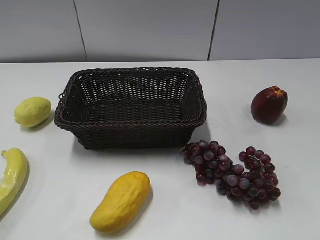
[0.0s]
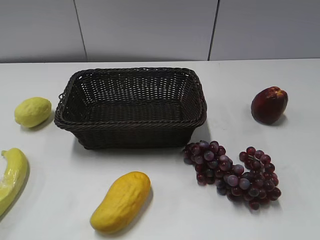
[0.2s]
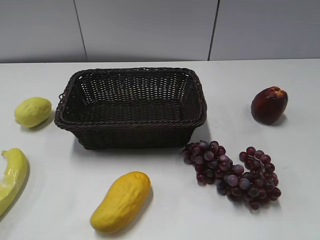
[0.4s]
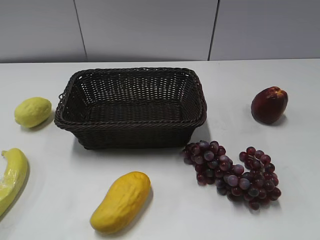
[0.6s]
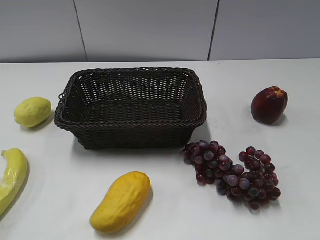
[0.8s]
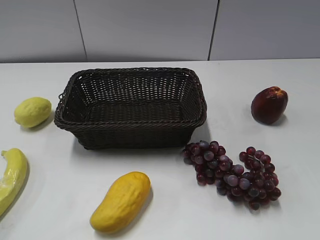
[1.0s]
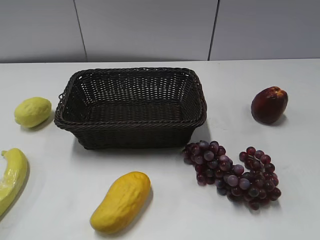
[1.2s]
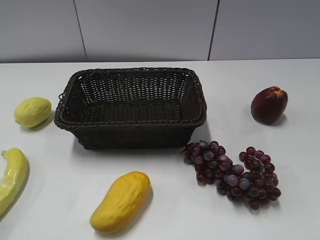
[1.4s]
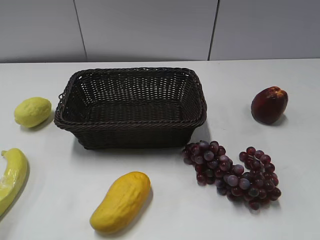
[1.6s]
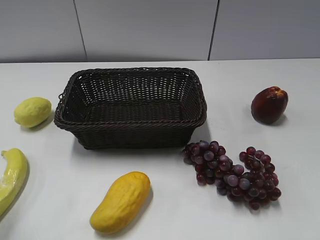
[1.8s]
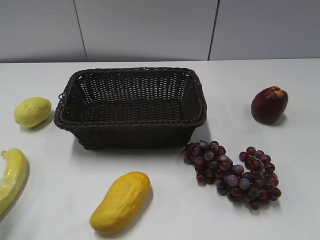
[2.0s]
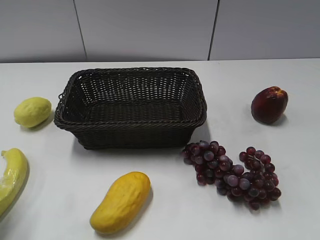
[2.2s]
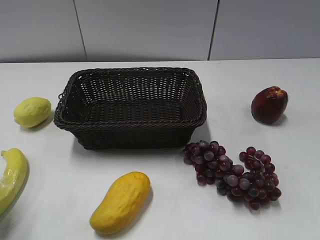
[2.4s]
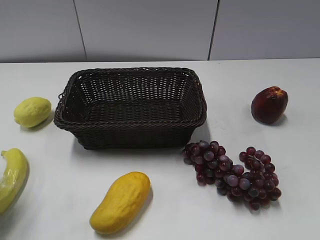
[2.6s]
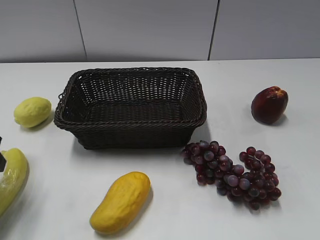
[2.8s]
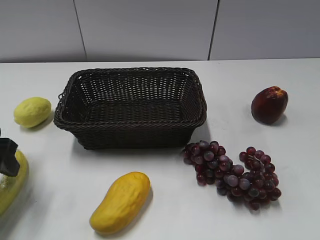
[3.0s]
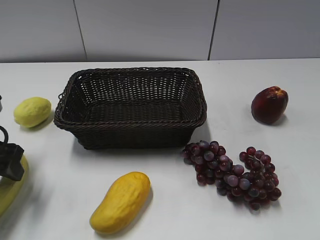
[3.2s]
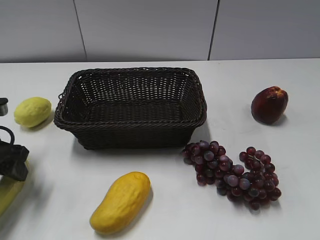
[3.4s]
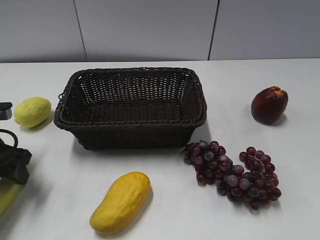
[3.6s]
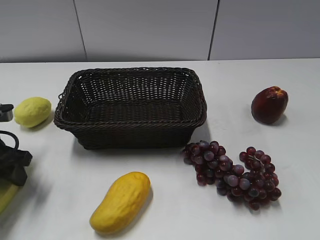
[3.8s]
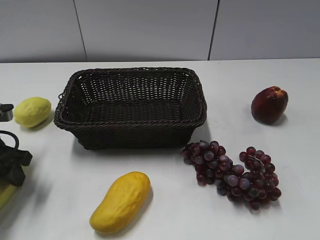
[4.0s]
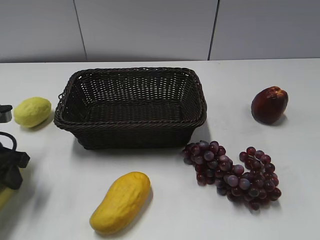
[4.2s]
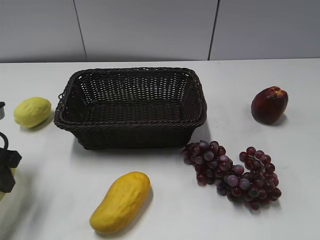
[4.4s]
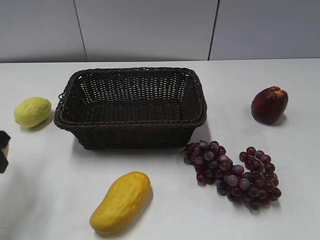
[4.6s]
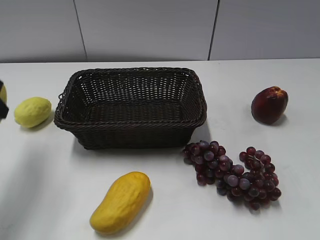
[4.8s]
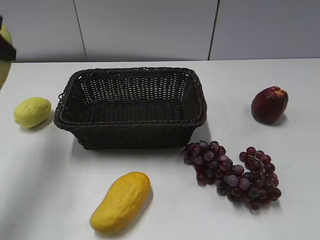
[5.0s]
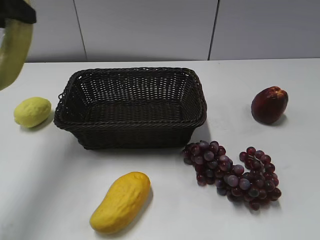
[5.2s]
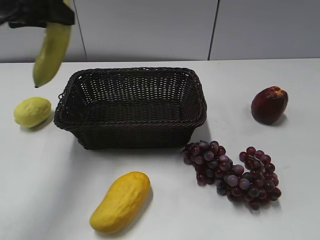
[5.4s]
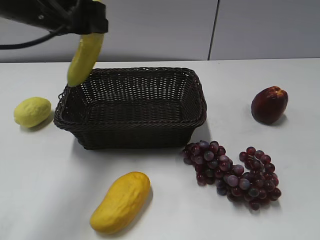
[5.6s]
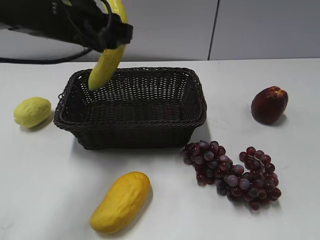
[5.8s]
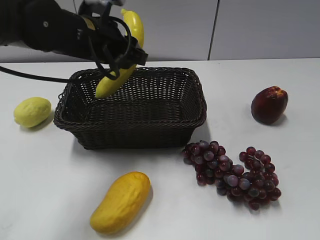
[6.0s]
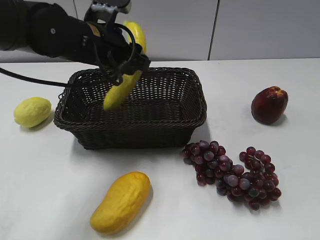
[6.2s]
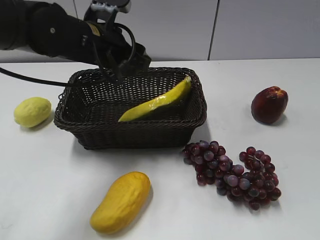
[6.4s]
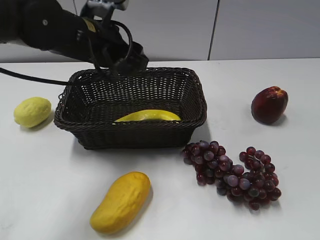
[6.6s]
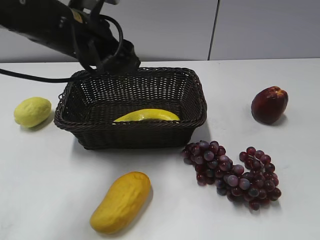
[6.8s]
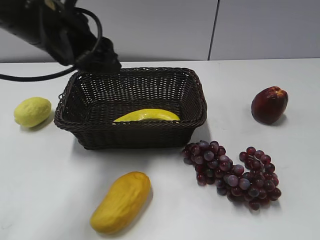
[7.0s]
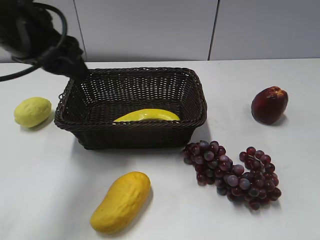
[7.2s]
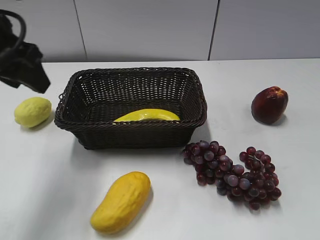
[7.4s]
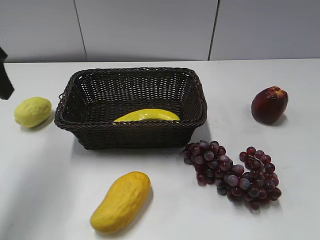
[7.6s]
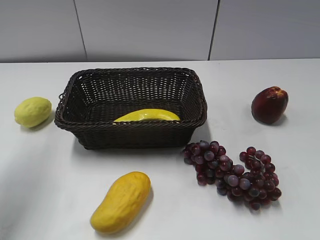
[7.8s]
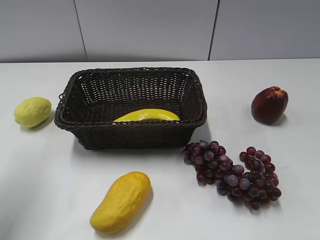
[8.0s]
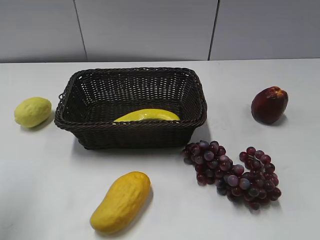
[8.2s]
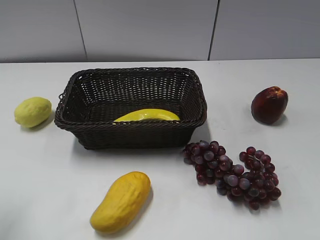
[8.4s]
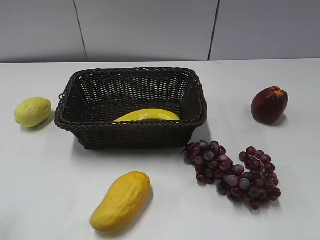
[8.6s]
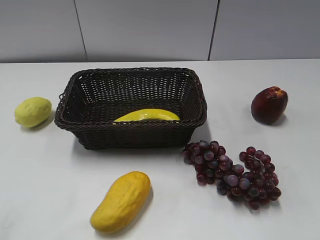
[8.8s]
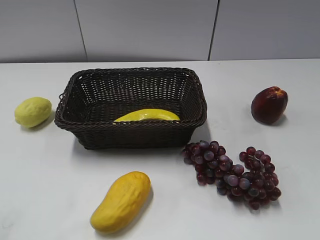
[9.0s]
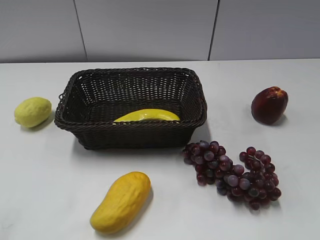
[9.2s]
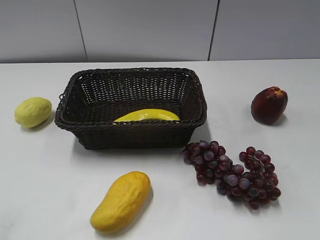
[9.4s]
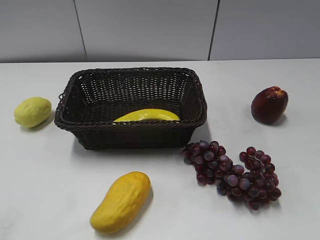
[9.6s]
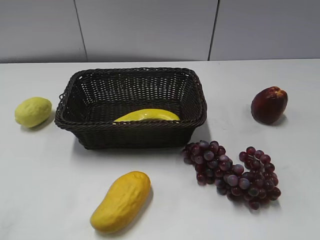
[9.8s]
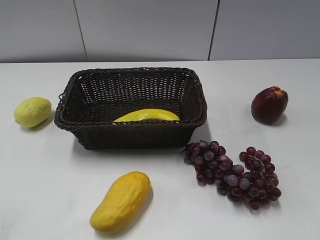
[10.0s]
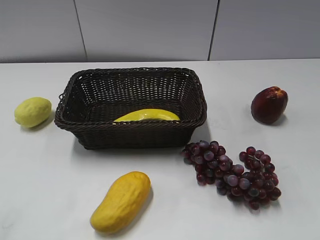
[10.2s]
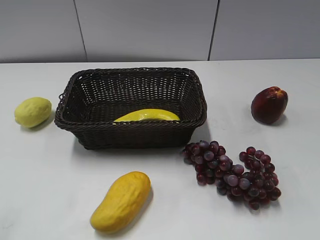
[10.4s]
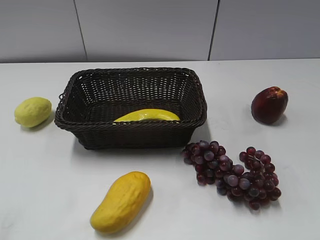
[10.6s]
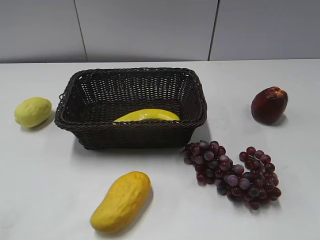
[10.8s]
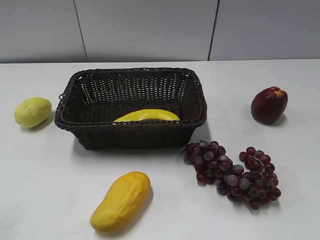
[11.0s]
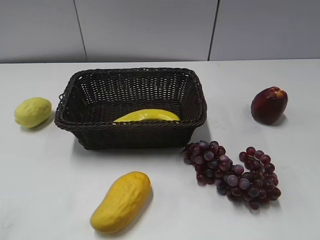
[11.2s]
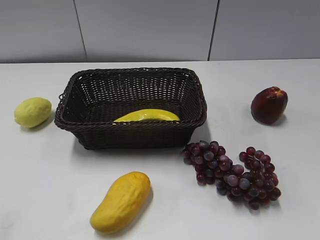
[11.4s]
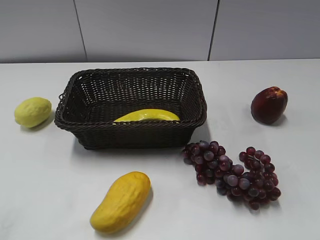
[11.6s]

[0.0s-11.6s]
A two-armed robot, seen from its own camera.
Step, 2.8s to 3.8s: Grasp the banana with left gripper.
Step, 4.0s to 6.4s: Place the banana in the basket with left gripper.
1.4s to 2.8s: The left gripper shifts some 20 cm forward and downward.
2.8s to 4.4s: The left gripper closes its fingers.
4.4s to 5.8s: The left gripper heads to the right, forward and upward, covering approximately 20 cm.
5.8s to 7.2s: The left gripper moves to the left, backward and upward, some 10 cm, and opens up.
7.2s to 8.8s: The left gripper heads backward and to the left, covering about 25 cm.

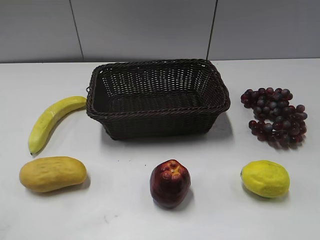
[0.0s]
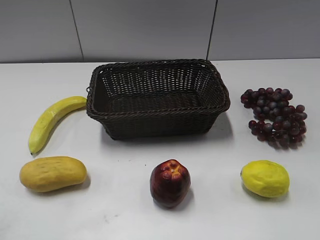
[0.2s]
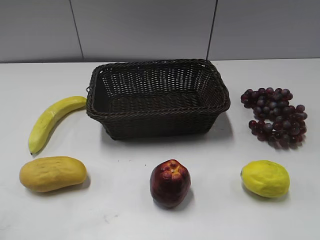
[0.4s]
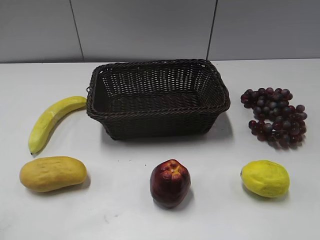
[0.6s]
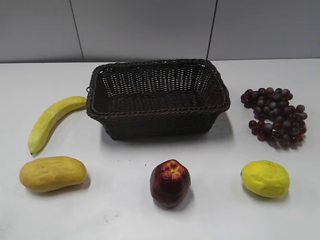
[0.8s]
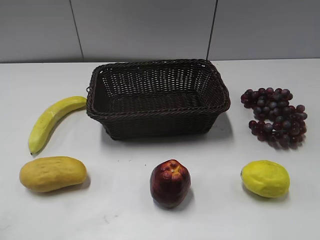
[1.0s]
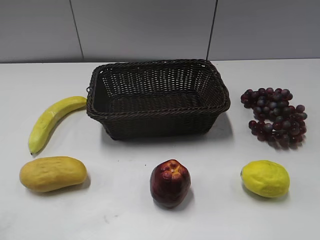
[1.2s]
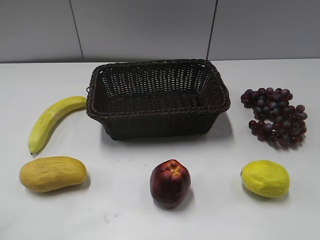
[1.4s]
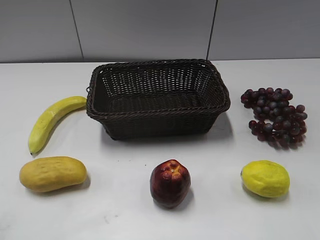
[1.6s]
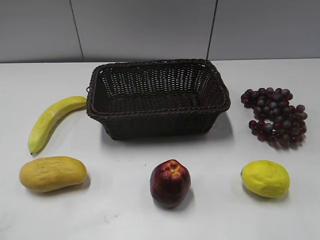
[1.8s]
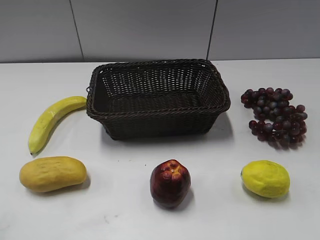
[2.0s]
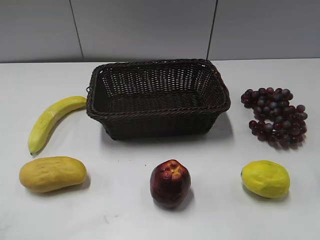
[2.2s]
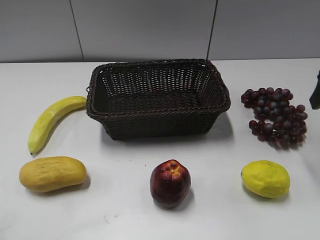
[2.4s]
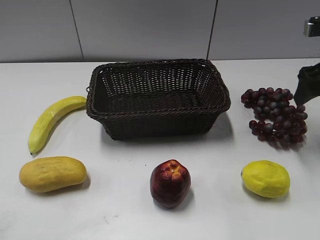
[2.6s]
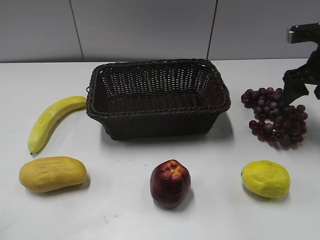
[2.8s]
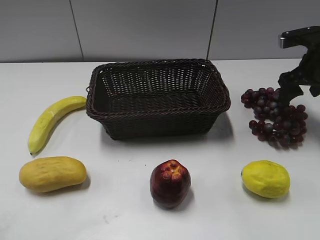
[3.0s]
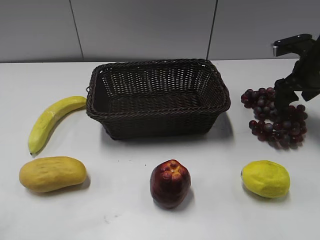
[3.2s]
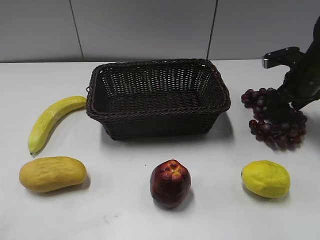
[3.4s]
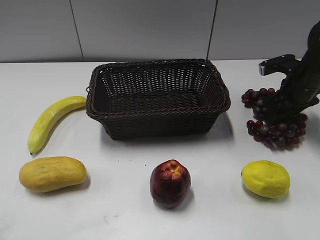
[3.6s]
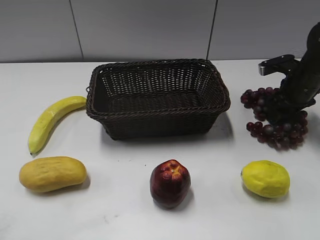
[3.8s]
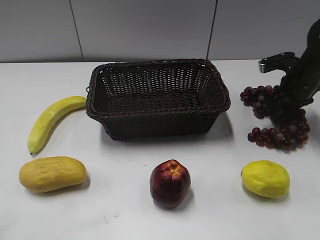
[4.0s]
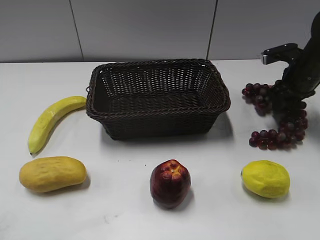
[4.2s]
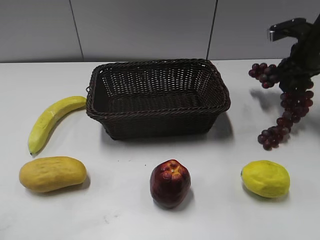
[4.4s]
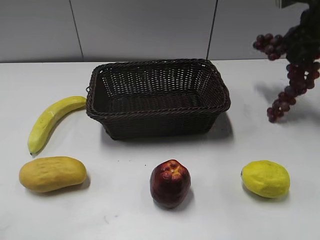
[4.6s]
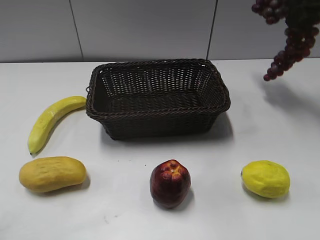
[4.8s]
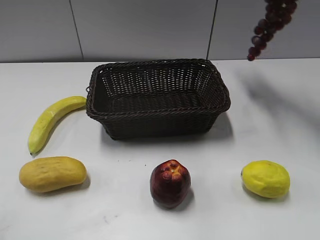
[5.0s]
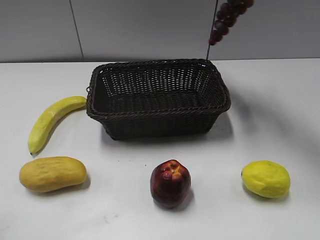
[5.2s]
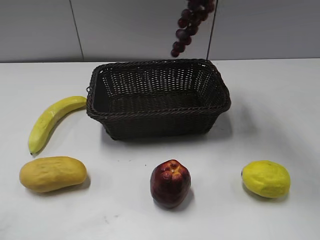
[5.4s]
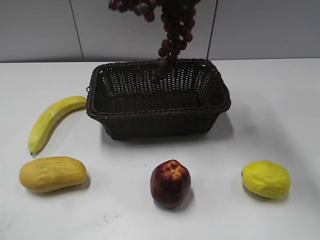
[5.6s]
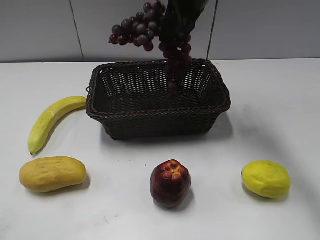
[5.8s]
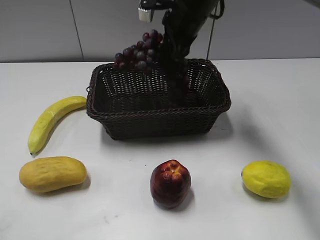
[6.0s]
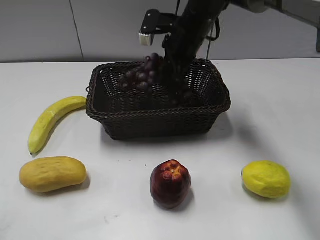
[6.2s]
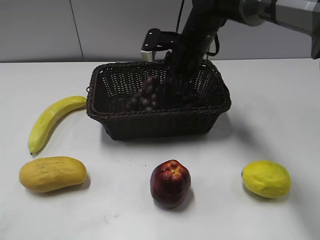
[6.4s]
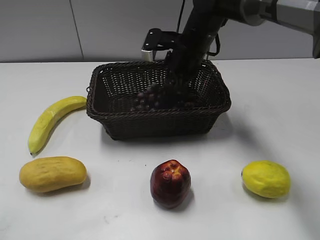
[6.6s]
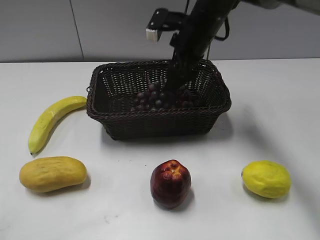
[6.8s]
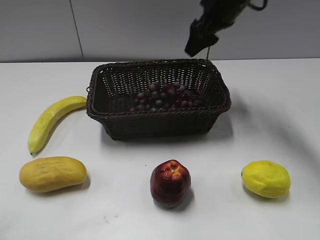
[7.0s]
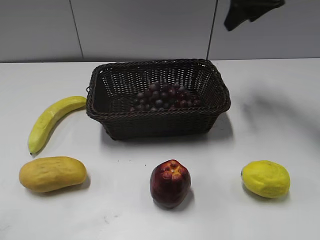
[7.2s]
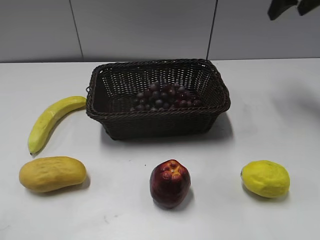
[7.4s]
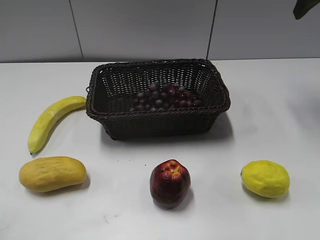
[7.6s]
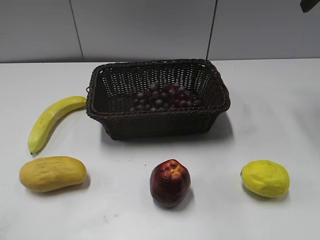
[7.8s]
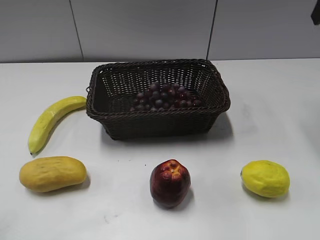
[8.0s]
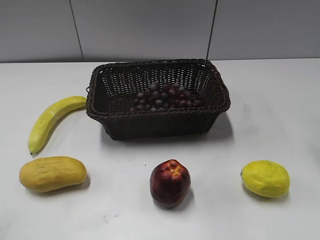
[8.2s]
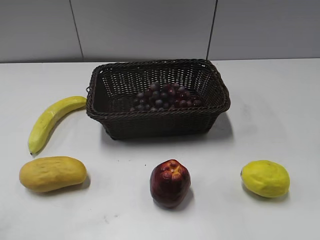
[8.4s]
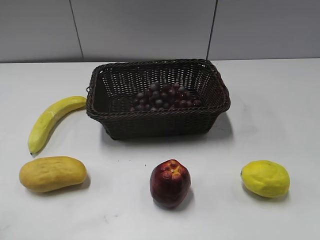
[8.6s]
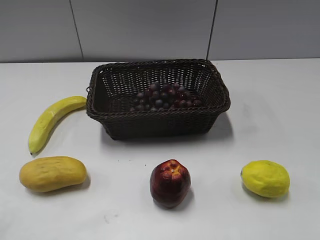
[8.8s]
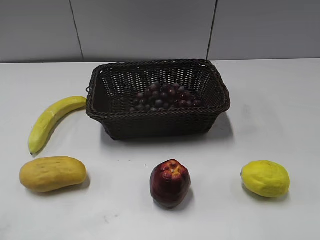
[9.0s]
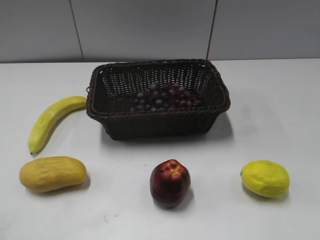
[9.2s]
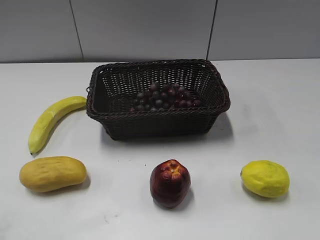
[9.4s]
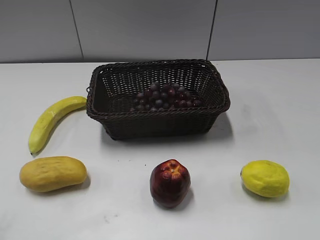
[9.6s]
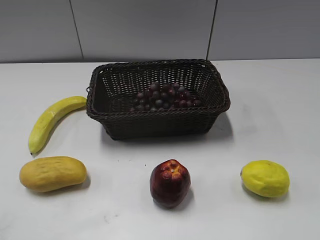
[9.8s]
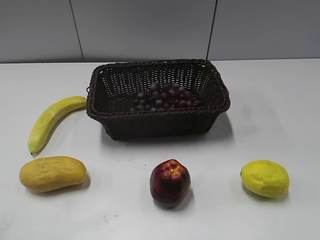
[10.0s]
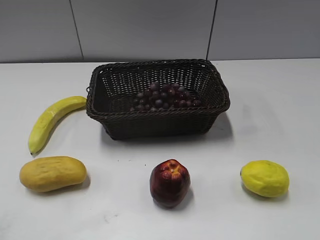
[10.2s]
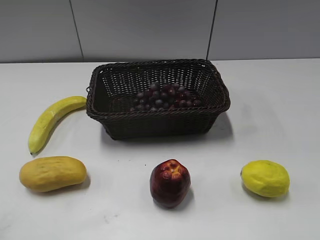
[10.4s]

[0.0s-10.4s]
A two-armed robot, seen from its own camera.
Step, 2.4s to 3.8s: Grasp the grape with right gripper.
Step, 4.0s to 6.6s: Place the grape in the basket with right gripper.
1.4s to 3.0s: The right gripper shifts some 35 cm forward.
3.0s to 4.4s: The right gripper travels downward and back again, approximately 5 cm each way, and closes.
4.4s to 6.0s: The right gripper goes about 25 cm to the left.
6.0s to 7.4s: The right gripper shifts roughly 20 cm to the right, and opens up.
7.4s to 9.0s: The right gripper goes some 35 cm backward.
